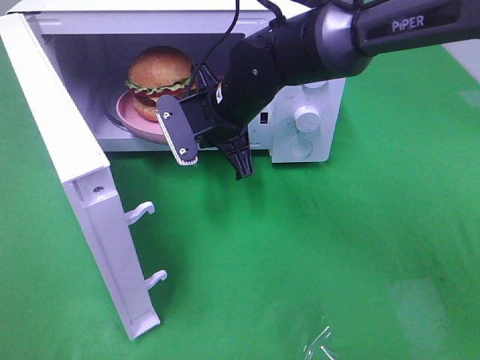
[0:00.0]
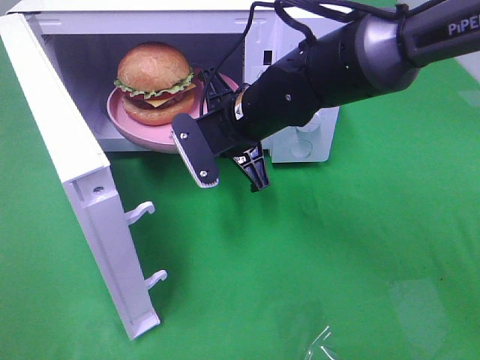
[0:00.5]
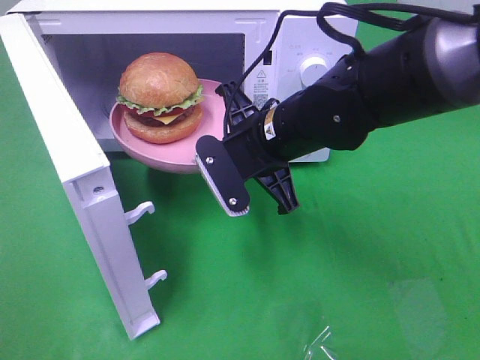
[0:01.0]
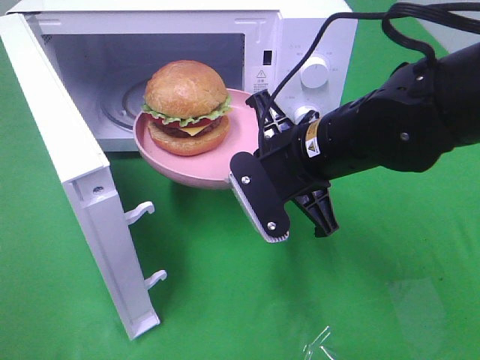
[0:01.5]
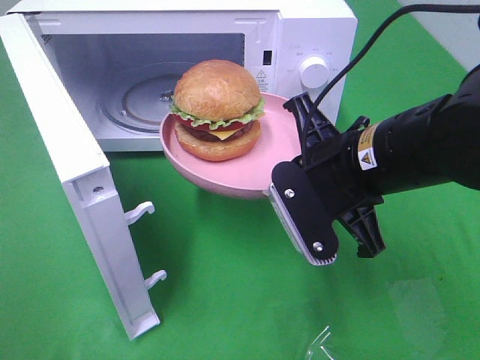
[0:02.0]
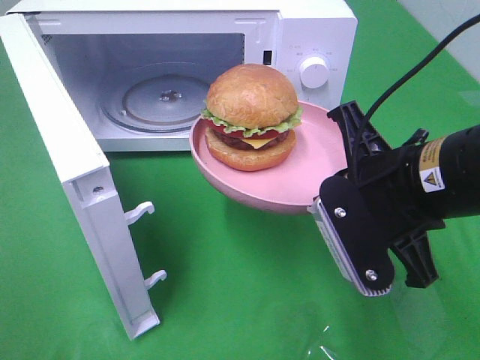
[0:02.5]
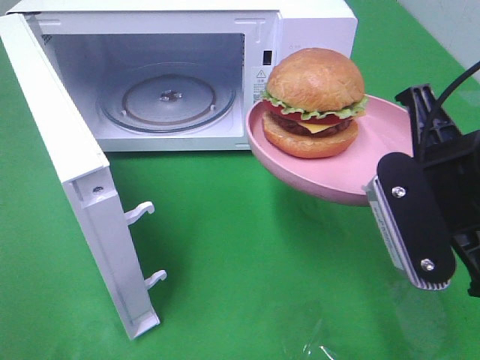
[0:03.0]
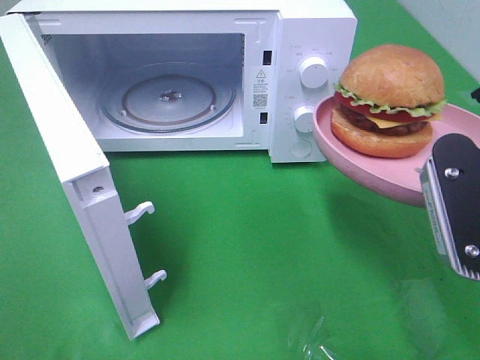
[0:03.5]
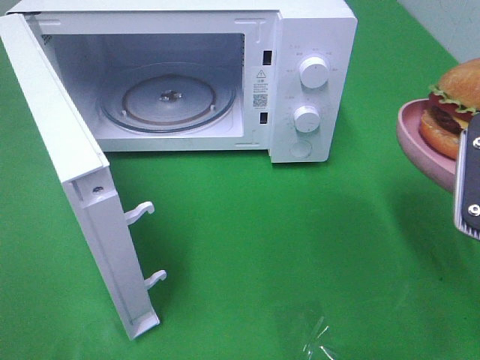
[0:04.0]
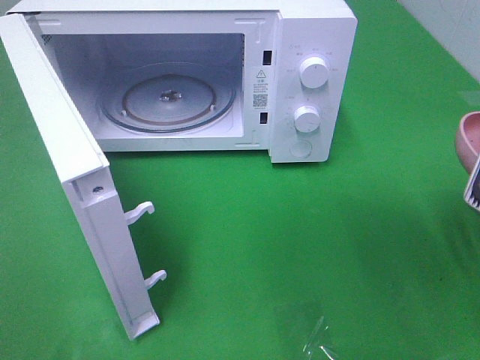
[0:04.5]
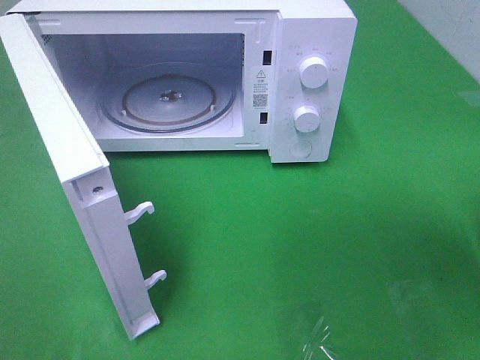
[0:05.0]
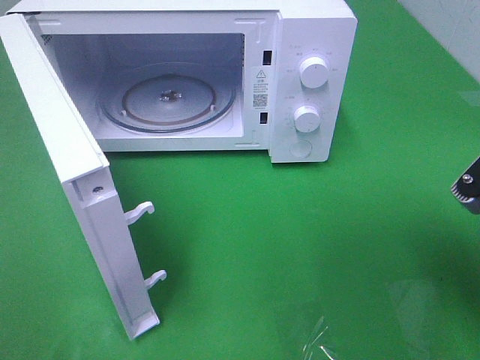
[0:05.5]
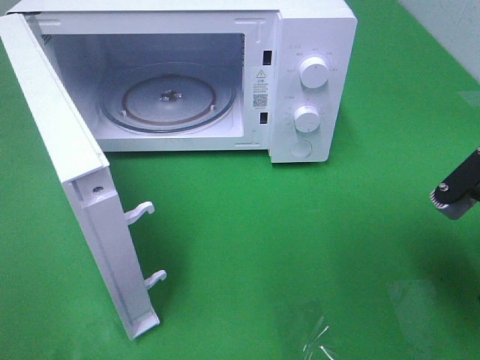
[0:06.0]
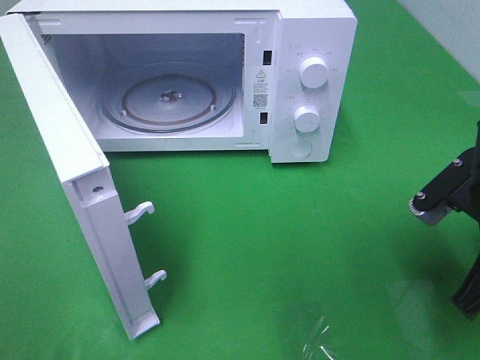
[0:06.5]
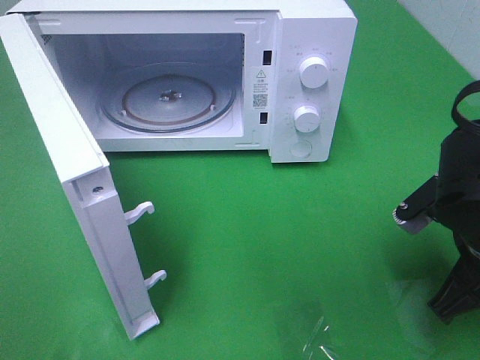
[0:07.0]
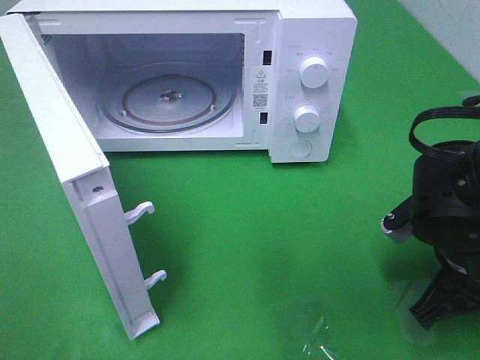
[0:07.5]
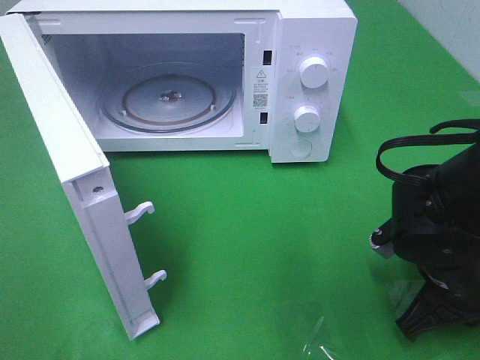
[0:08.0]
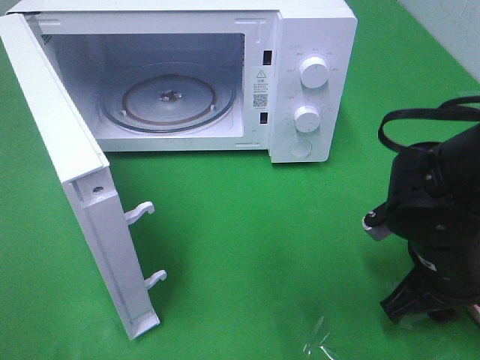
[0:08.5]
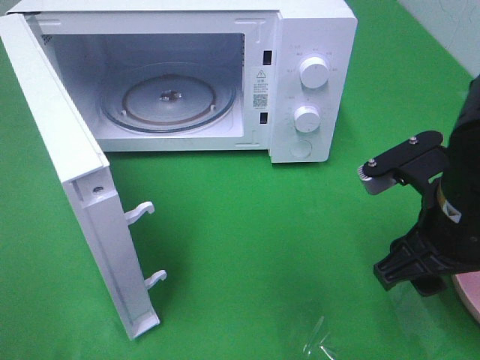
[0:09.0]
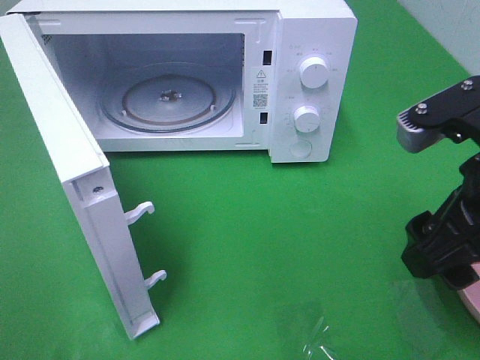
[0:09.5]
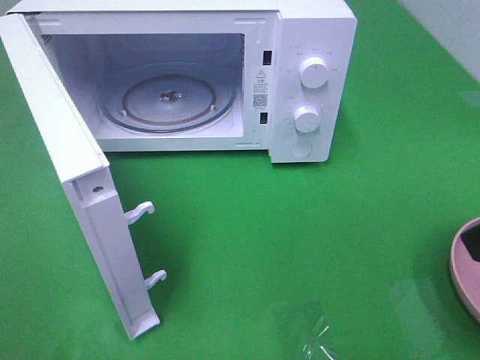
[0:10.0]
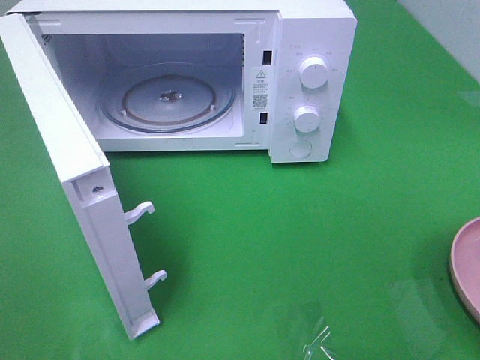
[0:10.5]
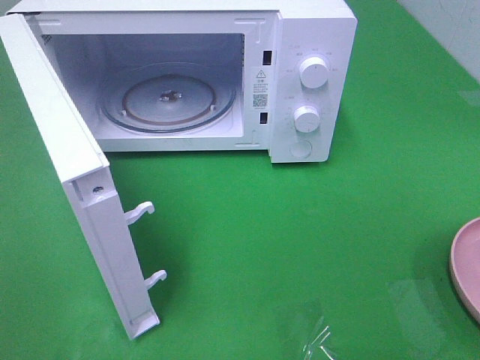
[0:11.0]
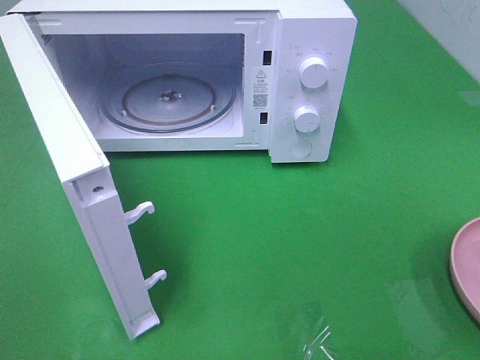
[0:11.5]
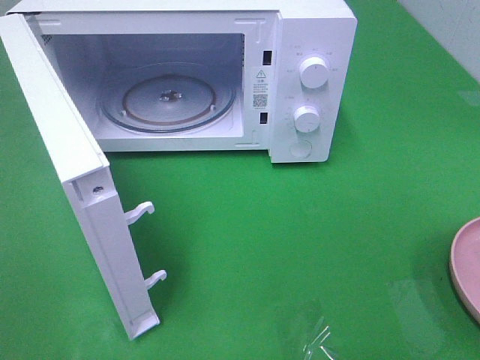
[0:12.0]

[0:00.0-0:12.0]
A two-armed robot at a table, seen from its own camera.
Task of the whole recording: Heat the burger.
Step, 0:00.0 to 0:08.5: Right hand: place the plate on the table.
0:00.0 to 0:02.0: The right gripper moves backward and to the right, some 20 cm.
0:02.0 to 0:04.0: The right gripper is displaced to the right, backward and upward by about 15 cm.
0:04.0 to 0:06.0: The right gripper moves downward, roughly 5 cm.
0:06.0 to 0:08.0: The right gripper travels downward by roughly 10 cm.
0:08.0 to 0:10.0: The right gripper goes about 20 cm upward, and opens its fingers.
0:10.0 to 0:12.0: The right gripper shifts some 15 cm backward and to the right.

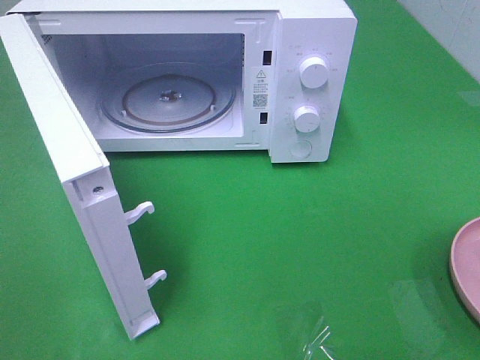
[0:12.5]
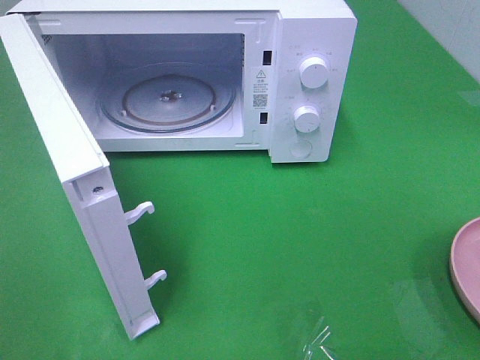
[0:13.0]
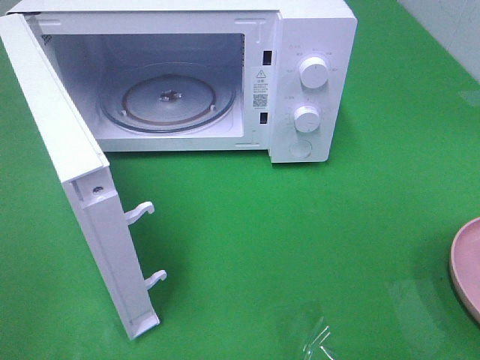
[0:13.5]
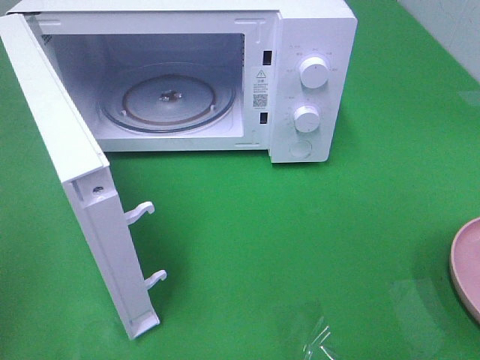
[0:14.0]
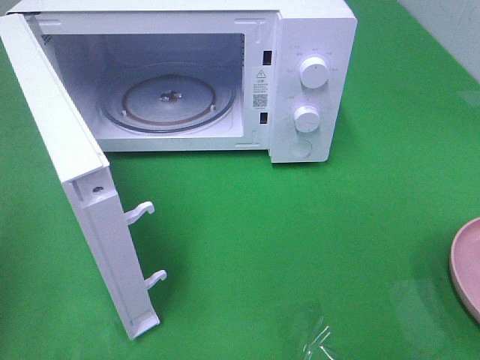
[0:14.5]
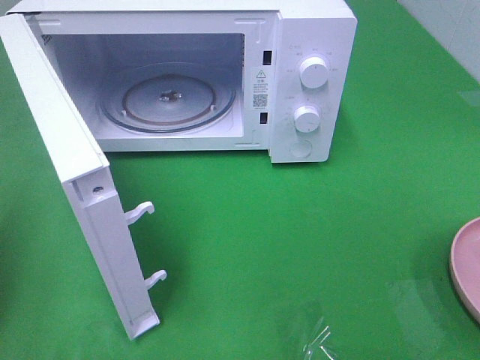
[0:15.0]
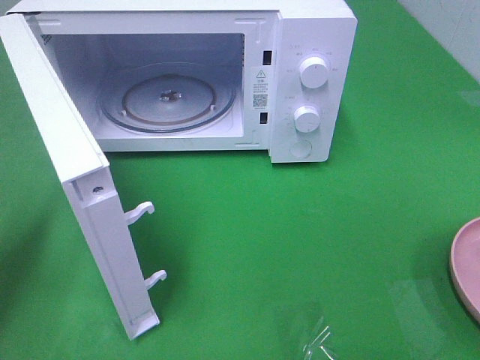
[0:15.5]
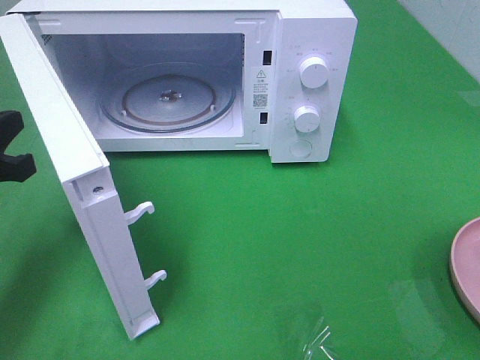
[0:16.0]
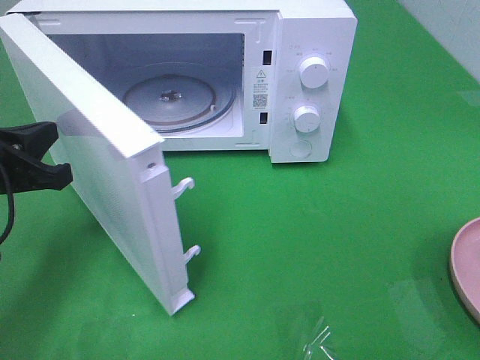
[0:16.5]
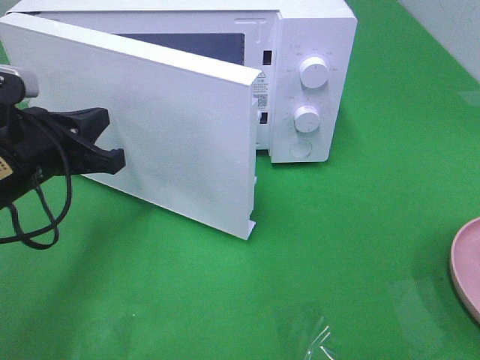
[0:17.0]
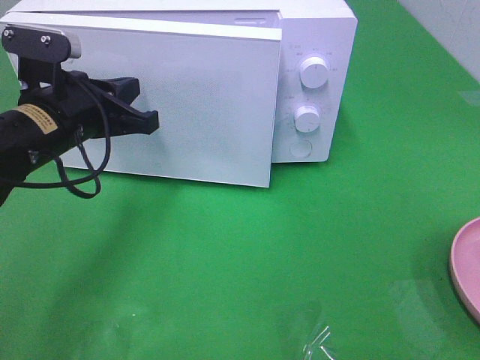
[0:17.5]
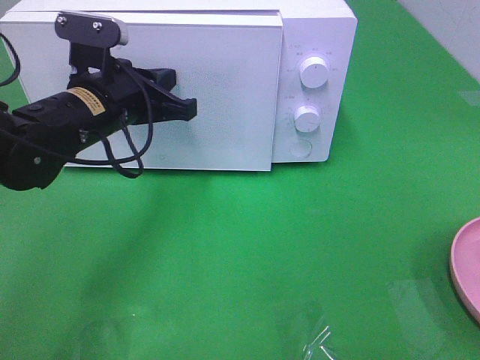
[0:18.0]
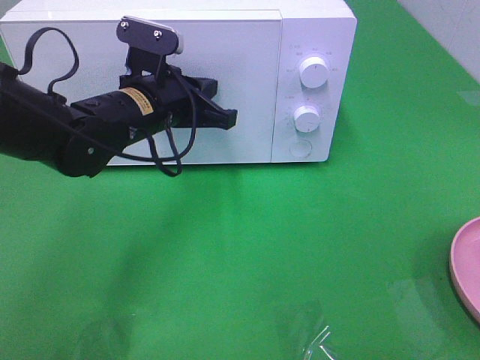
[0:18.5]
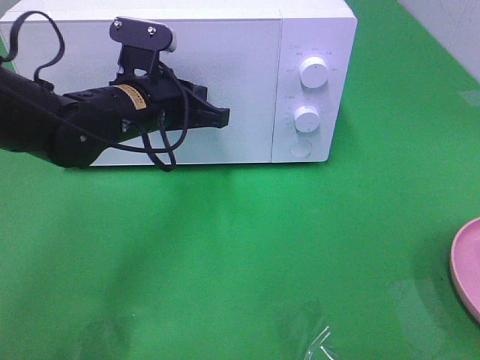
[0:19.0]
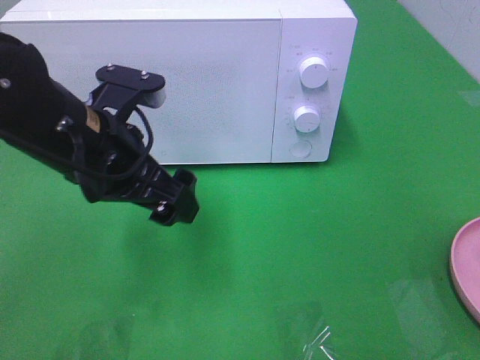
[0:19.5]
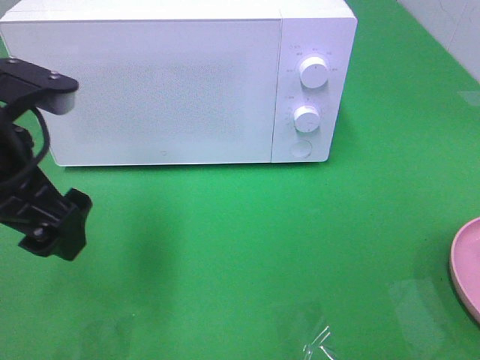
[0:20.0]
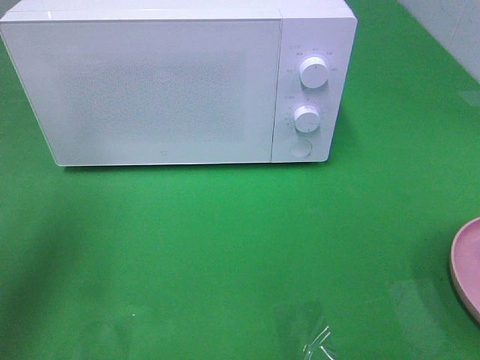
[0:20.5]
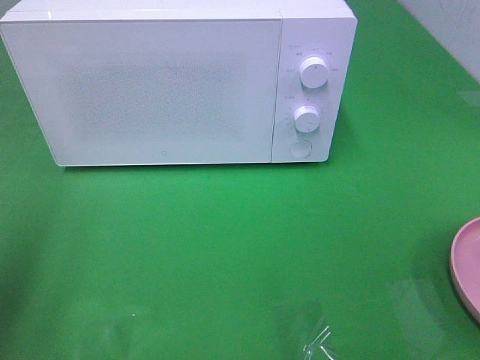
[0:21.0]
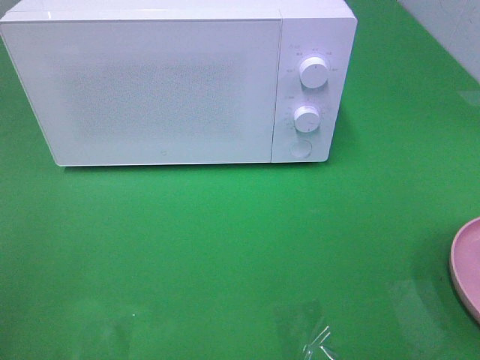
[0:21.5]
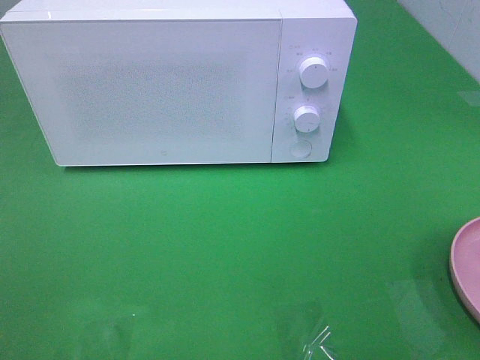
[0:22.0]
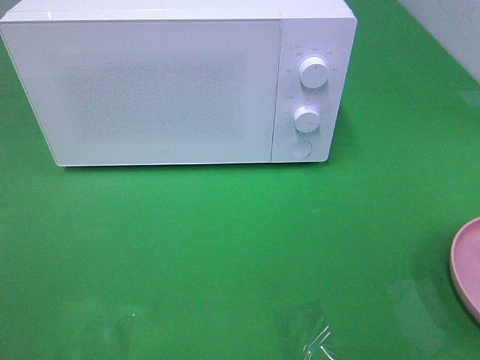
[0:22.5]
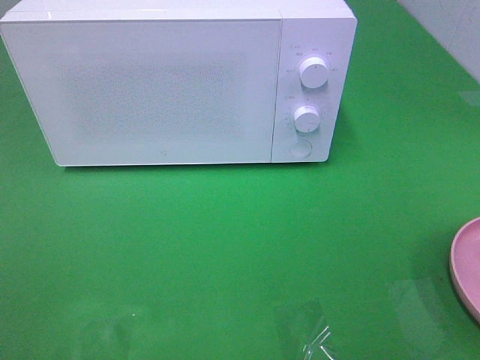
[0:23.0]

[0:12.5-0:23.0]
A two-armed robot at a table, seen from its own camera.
Task of the whole recording: Heat the burger.
Step, 0:12.5 to 0:19.0: Left hand: close the microwave door.
0:14.5 to 0:16.5: The left gripper heads forward, downward and to the right, covering about 20 cm.
0:16.5 to 0:19.0: The left gripper shifts approximately 20 cm to the right and forward.
0:19.0 to 0:21.0: The left gripper is displaced to the left, backward and upward by about 30 cm, and opens its fingers.
0:21.0 to 0:23.0: The left gripper travels backward by some 15 cm.

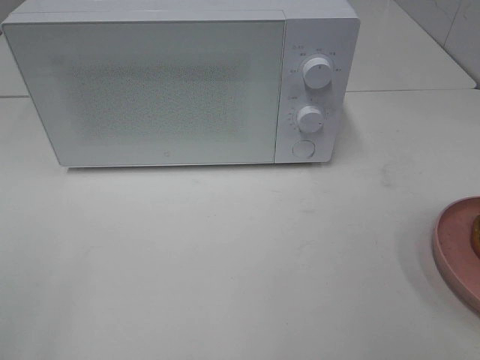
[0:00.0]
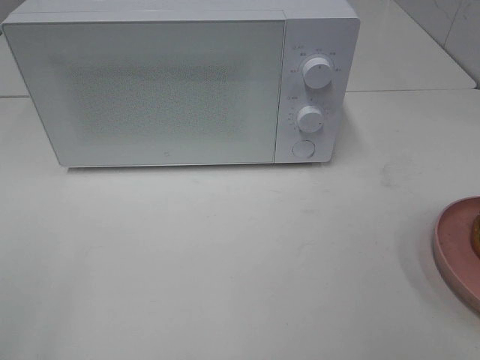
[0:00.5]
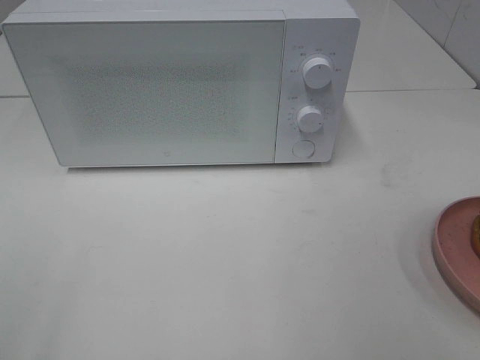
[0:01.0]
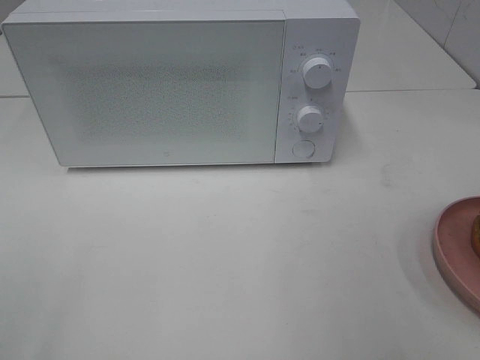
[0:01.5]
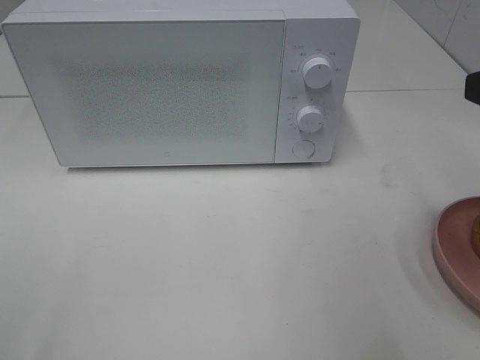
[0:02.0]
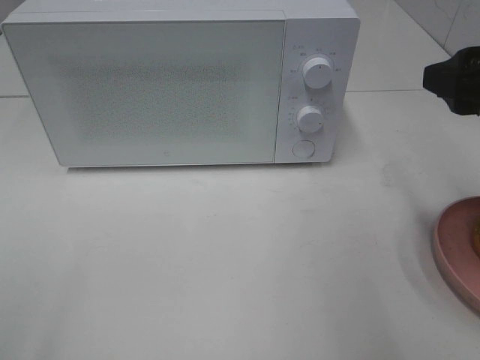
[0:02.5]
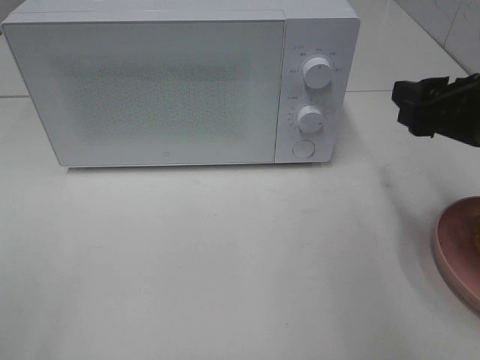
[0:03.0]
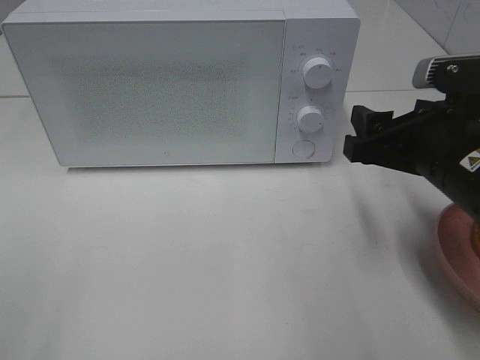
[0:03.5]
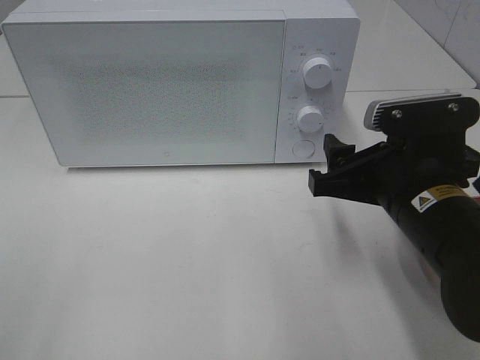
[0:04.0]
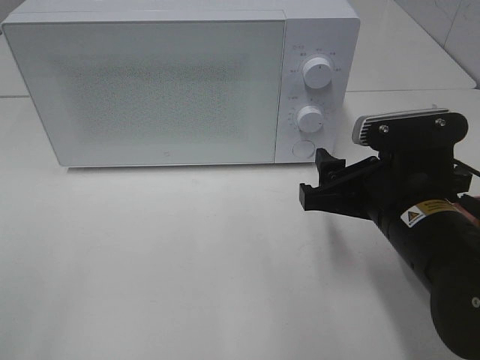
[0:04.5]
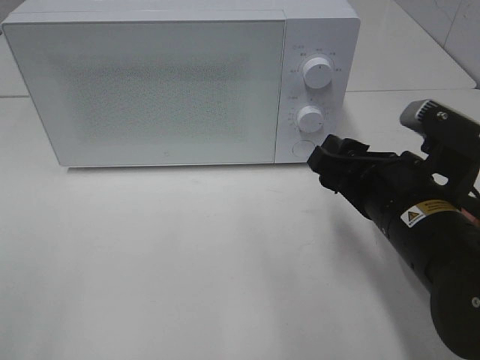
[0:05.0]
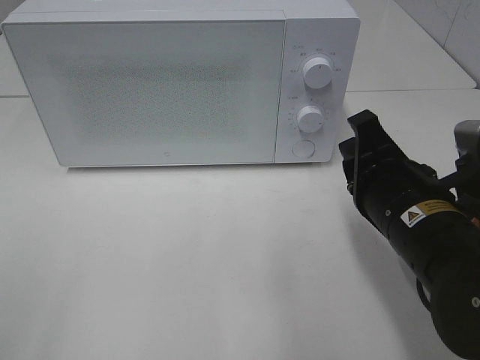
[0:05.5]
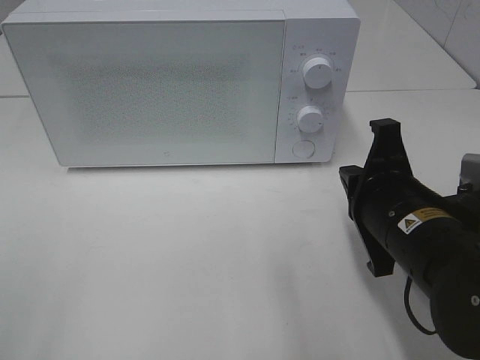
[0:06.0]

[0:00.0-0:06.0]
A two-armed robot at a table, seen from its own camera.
Task of the whole recording: Heat the burger.
0:02.0 to 0:04.0: The right gripper shifts roughly 15 cm downward and to the left.
0:04.0 to 0:06.0: The right gripper closes up.
